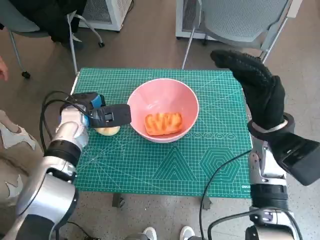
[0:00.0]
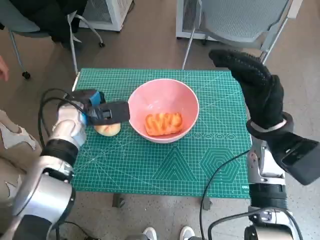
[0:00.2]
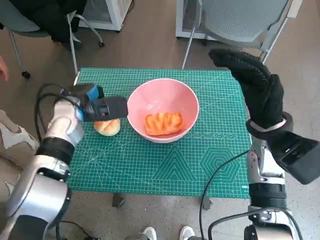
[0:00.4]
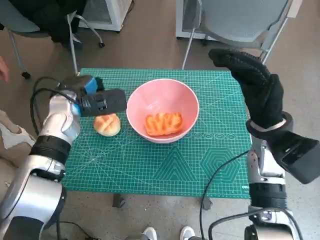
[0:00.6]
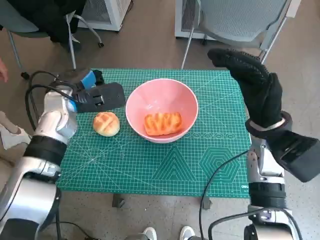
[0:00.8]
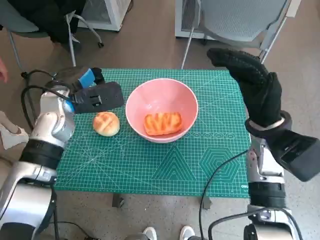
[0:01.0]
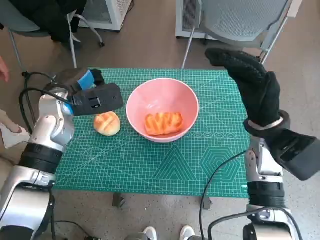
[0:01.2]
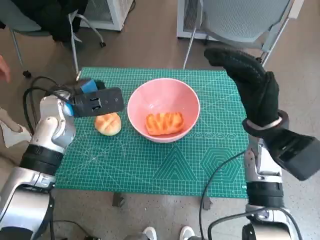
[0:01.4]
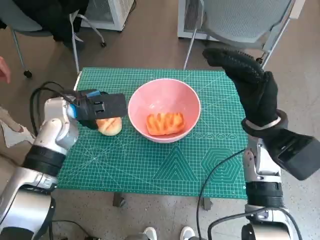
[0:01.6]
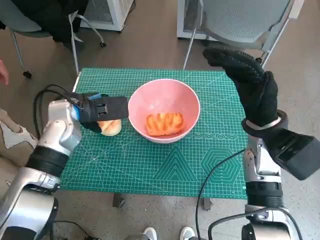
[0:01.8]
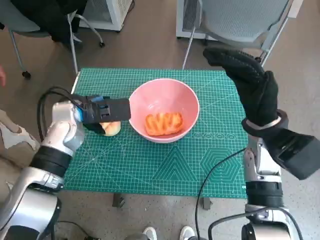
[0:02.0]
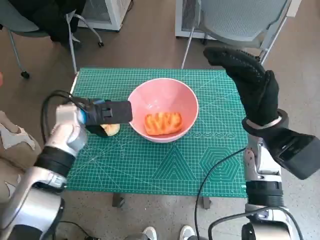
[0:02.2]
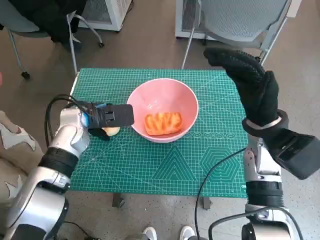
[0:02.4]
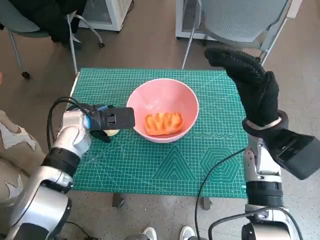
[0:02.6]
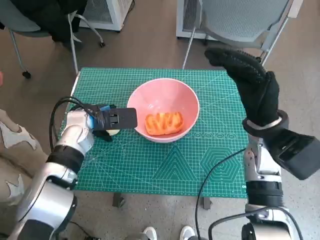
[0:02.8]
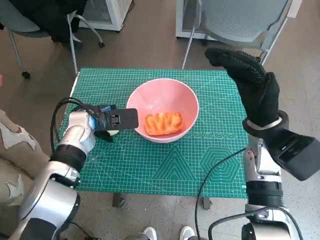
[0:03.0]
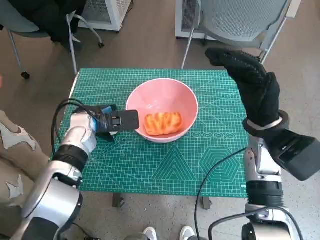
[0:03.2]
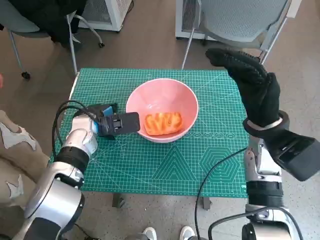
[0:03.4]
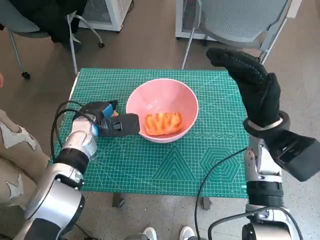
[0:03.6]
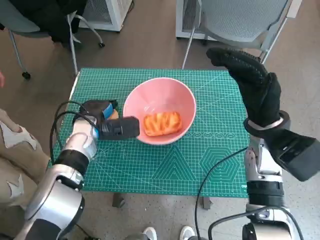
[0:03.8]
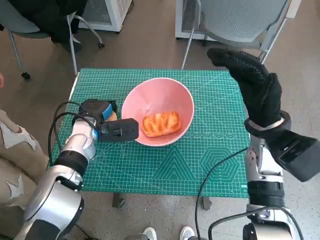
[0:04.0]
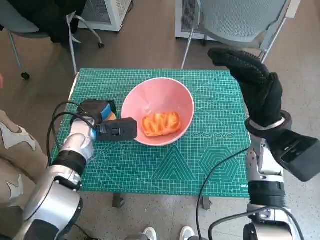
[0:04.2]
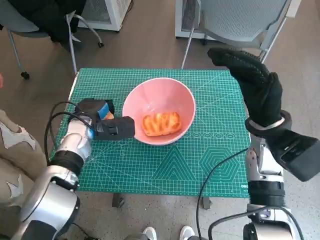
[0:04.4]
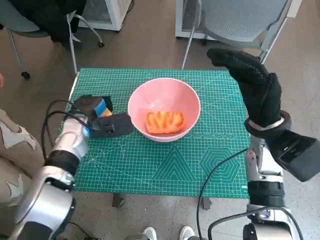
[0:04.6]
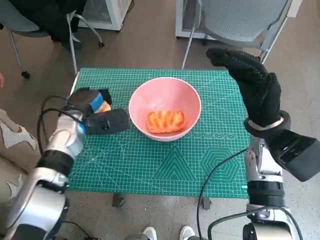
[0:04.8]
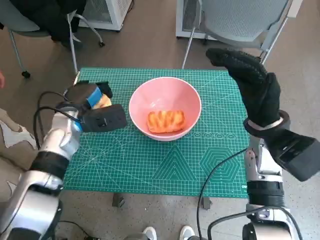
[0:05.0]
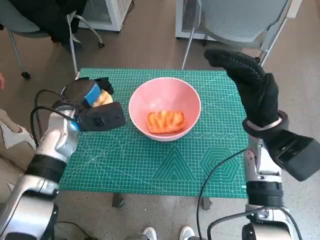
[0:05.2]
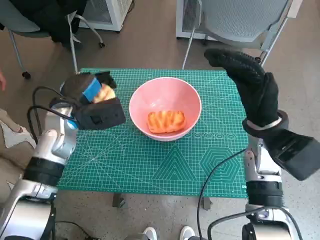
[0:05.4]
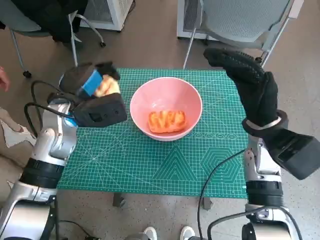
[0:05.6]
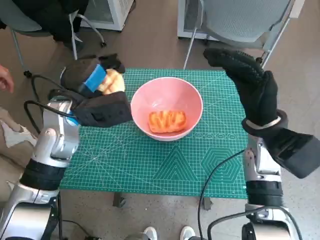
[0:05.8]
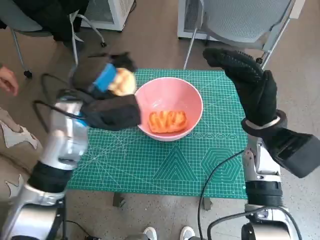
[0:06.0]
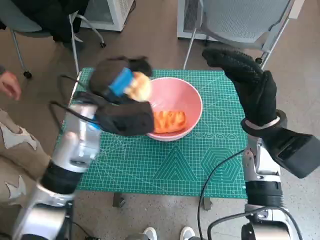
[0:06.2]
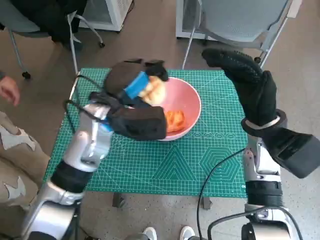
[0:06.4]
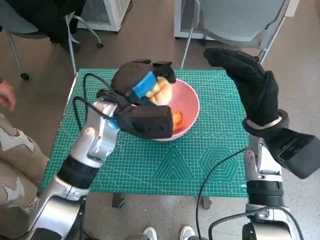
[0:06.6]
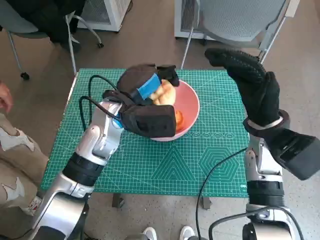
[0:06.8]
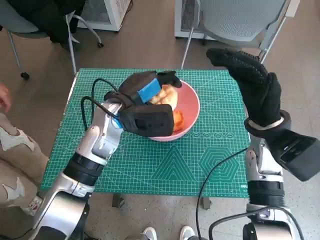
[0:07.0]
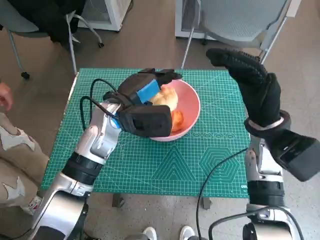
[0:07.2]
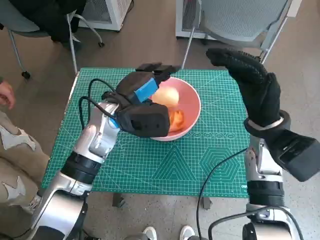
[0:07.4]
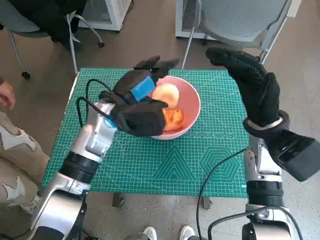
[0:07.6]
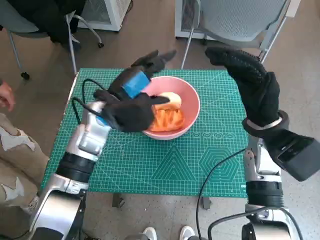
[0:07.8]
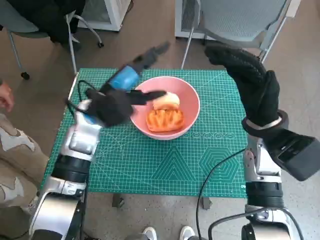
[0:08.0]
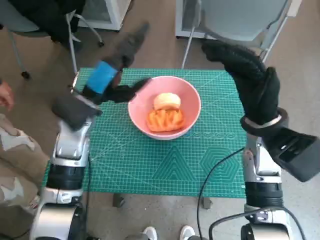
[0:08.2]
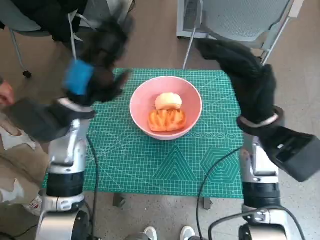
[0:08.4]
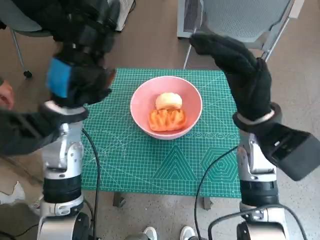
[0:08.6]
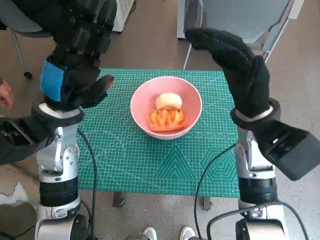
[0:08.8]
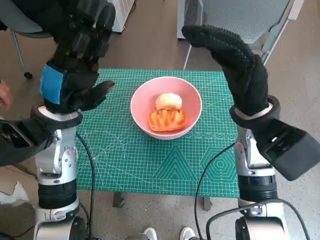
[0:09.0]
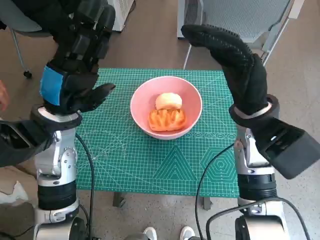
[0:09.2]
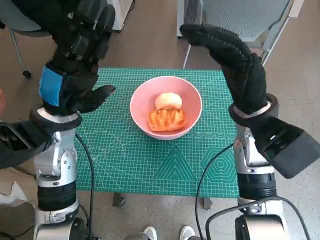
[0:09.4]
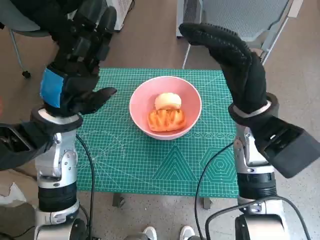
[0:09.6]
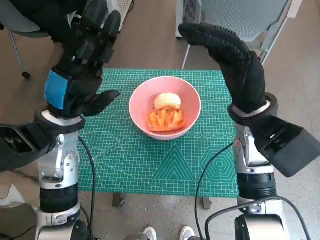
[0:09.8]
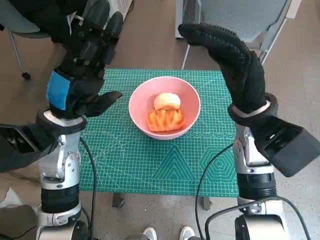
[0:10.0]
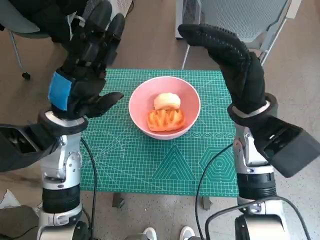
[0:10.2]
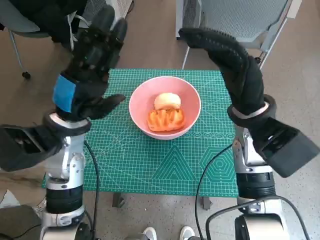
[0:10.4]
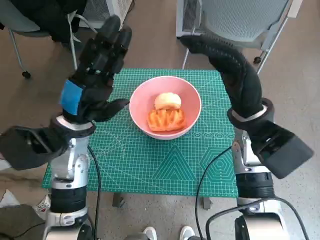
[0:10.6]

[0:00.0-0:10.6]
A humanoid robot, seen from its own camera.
Step, 0:00.0 to 0:03.8: Grasp the round bread with left hand.
Step, 0:04.0 to 0:07.8: Place the round bread in pink bowl with left hand.
0:00.0 to 0:01.6: The left hand heads upward, covering approximately 5 cm.
0:01.6 to 0:03.0: The left hand shifts roughly 5 cm downward.
0:04.6 to 0:06.0: The left hand moves upward, some 10 cm.
0:06.0 to 0:07.6: The left hand changes place by some 5 cm.
0:07.6 to 0:09.0: The left hand goes about 10 cm to the left and backward. Meanwhile the right hand ends up some 5 cm from where it was.

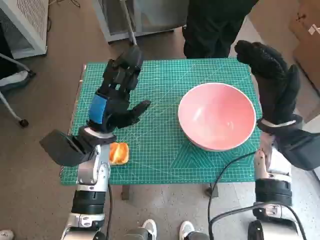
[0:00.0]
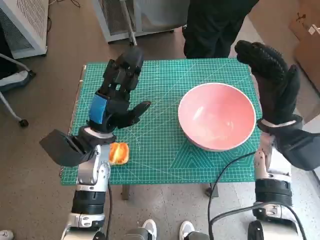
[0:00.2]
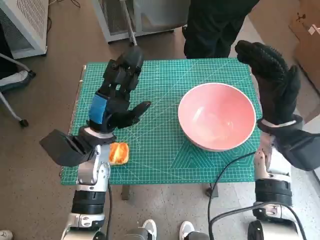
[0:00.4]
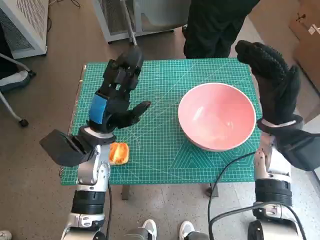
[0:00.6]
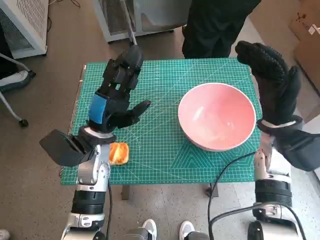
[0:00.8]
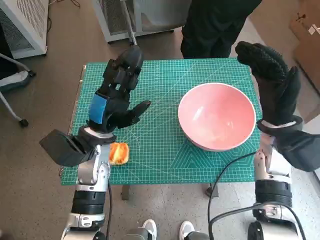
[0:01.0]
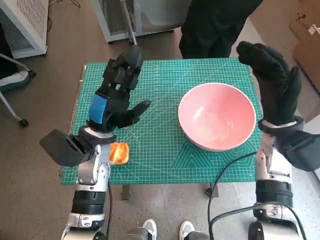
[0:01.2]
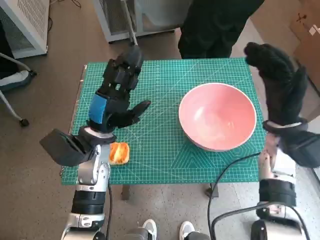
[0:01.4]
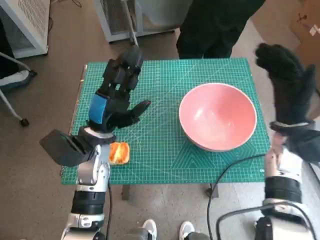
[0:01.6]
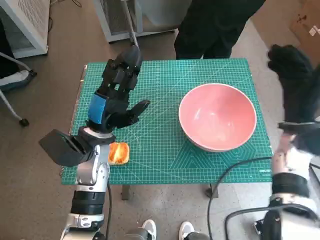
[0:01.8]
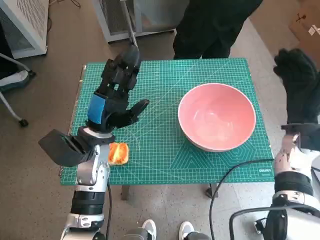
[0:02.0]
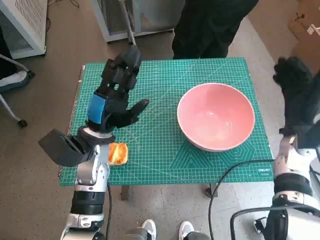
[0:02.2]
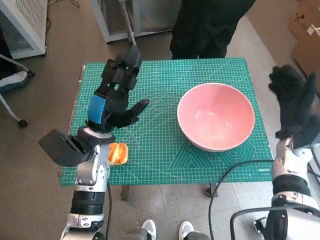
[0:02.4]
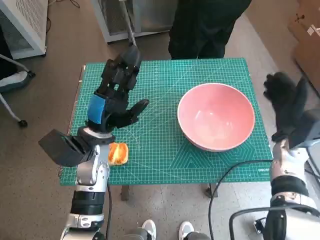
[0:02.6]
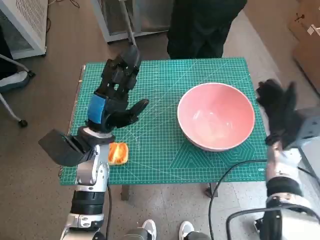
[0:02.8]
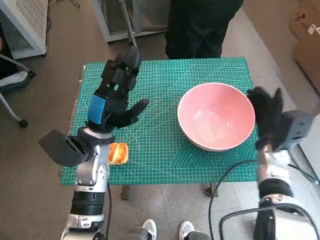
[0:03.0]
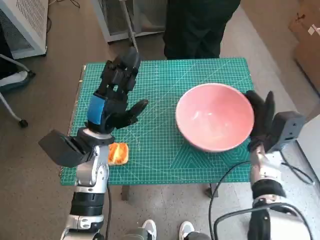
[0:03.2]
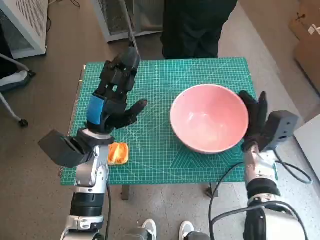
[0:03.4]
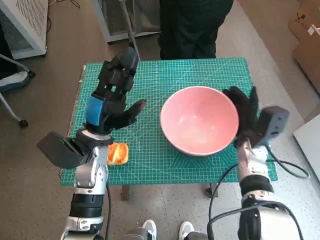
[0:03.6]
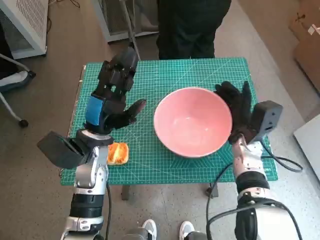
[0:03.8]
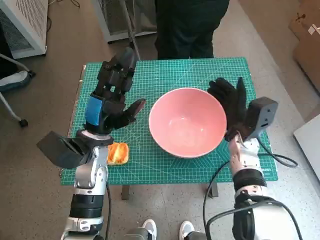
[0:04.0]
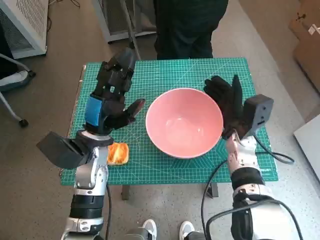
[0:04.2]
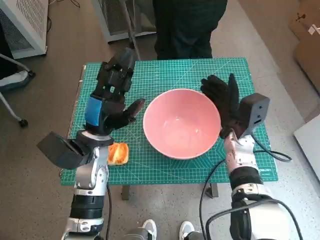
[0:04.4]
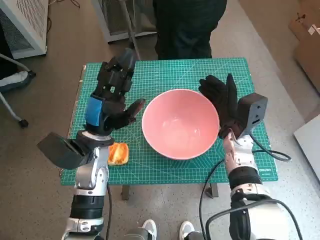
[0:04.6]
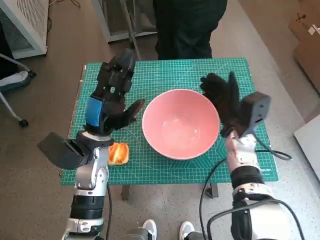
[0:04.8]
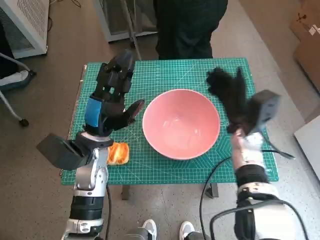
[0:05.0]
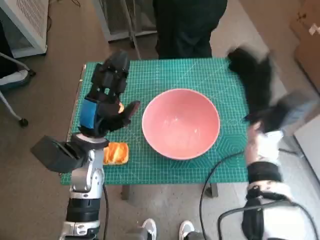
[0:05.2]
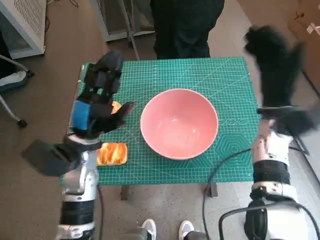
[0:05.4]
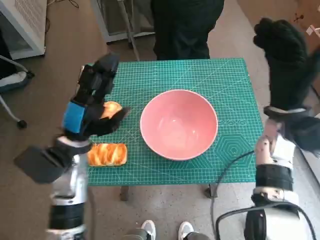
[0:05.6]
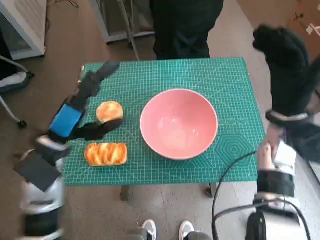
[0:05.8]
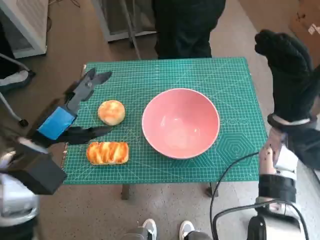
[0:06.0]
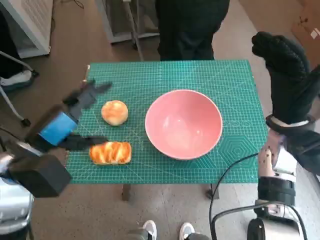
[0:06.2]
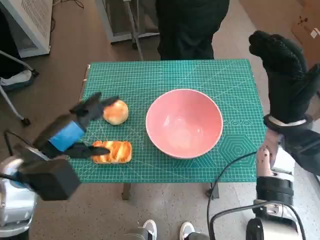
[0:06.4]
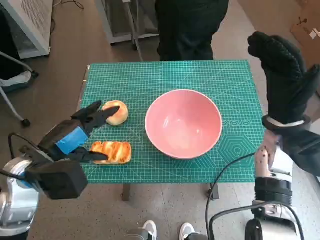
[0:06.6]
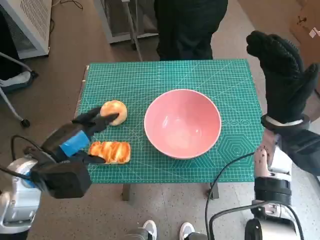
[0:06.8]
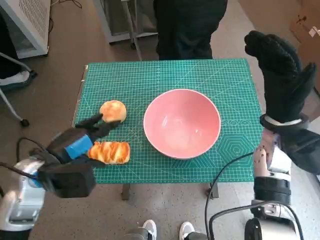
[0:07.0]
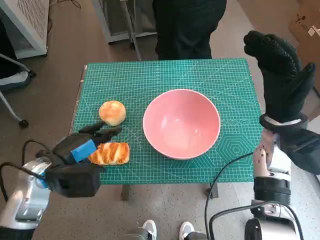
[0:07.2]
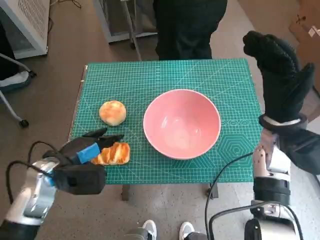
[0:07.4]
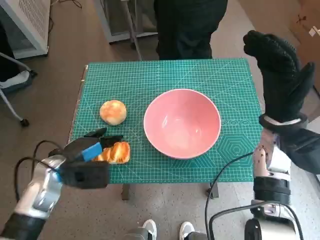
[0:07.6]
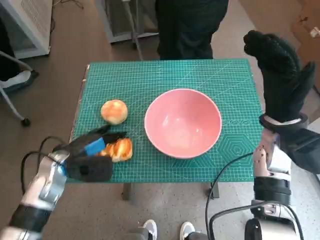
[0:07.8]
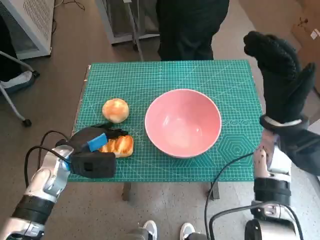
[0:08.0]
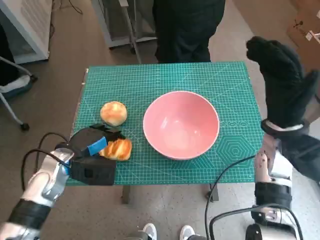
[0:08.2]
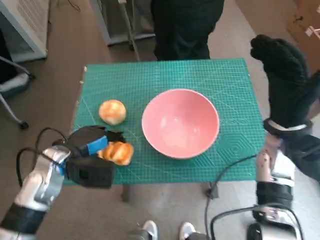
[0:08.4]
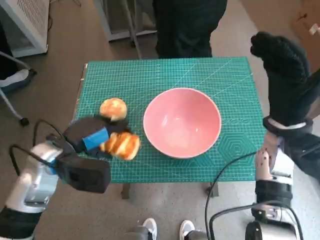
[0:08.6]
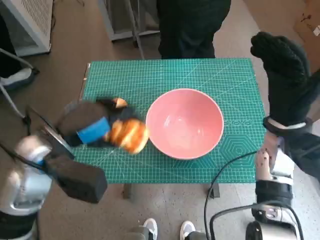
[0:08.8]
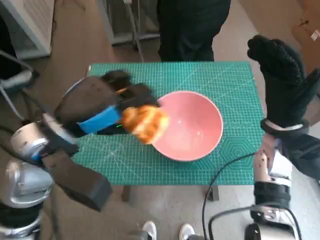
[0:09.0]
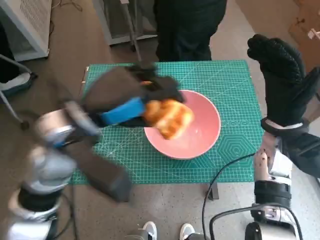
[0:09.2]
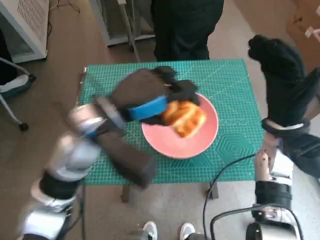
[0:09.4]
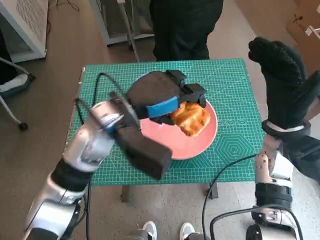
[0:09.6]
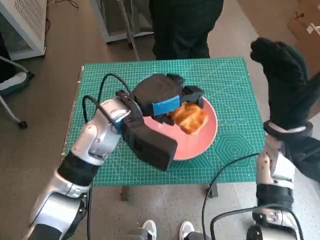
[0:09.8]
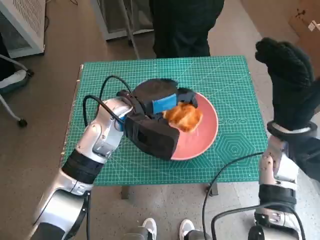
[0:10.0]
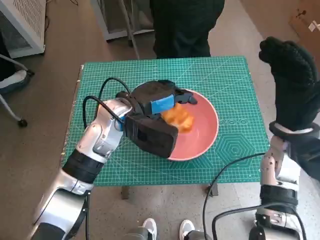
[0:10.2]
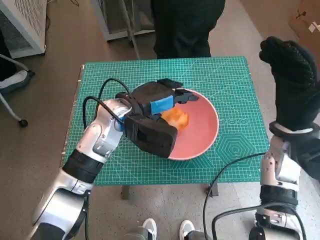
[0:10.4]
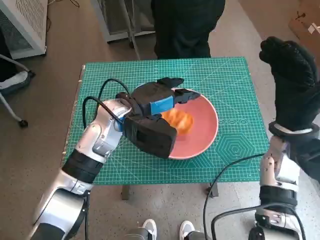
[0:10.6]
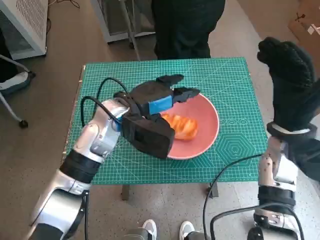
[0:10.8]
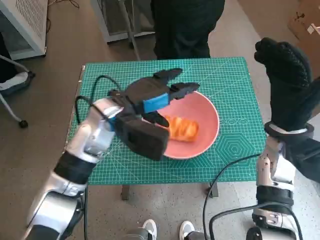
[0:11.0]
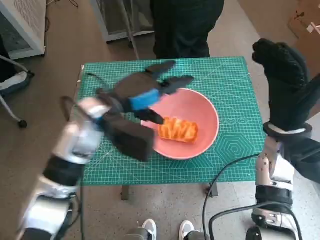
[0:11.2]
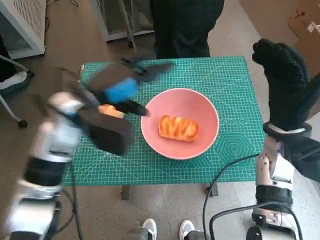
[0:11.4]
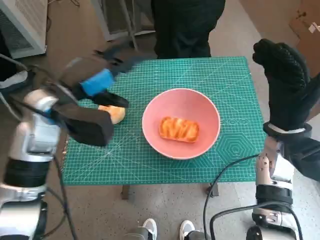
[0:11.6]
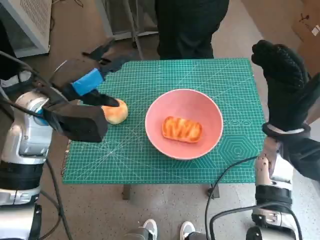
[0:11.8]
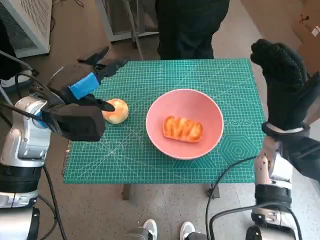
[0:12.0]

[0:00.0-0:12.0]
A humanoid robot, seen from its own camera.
Step, 0:00.0 to 0:04.8: Move the pink bowl to the center of table with right hand.
Step, 0:05.0 to 0:08.0: Grasp the long bread with left hand.
Step, 0:08.2 to 0:10.6: Place the long bread in pink bowl with left hand.
0:01.6 to 0:03.0: The right hand shifts some 10 cm downward.
0:03.0 to 0:04.4: The right hand shifts about 10 cm to the left.
0:04.4 to 0:06.0: The right hand heads upward and to the right, covering roughly 10 cm. The left hand goes some 10 cm to the left, upward and backward.
0:06.0 to 0:07.6: The left hand travels downward by roughly 10 cm.
0:07.6 to 0:09.0: The left hand goes roughly 15 cm upward and to the right.
0:09.0 to 0:10.4: The left hand goes some 15 cm forward, to the right and downward.
0:10.4 to 0:12.0: The left hand goes approximately 10 cm to the left.
